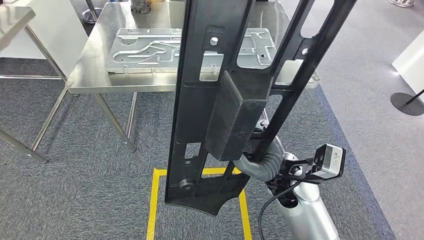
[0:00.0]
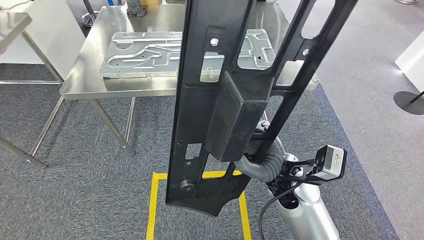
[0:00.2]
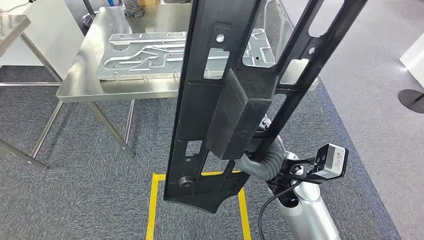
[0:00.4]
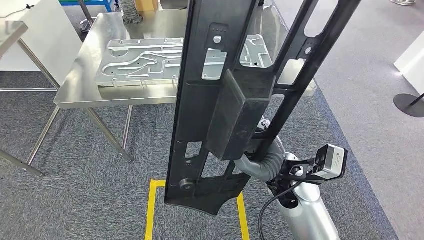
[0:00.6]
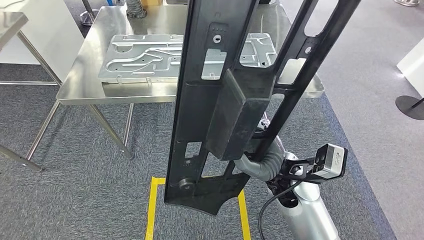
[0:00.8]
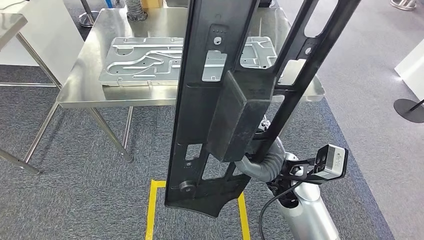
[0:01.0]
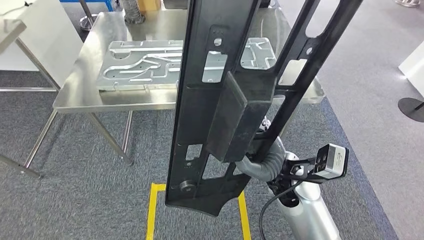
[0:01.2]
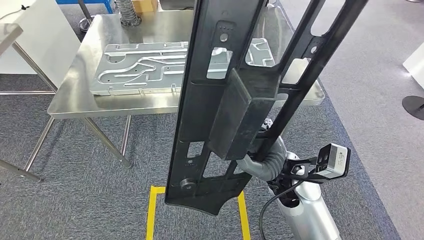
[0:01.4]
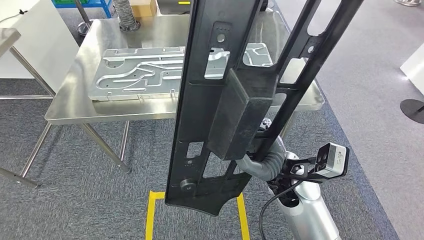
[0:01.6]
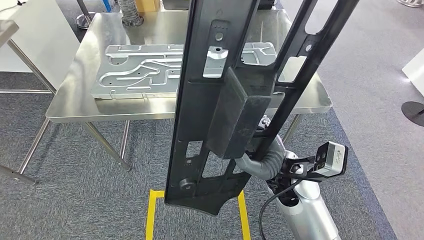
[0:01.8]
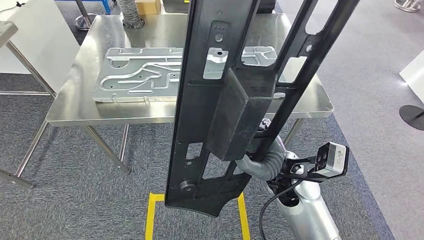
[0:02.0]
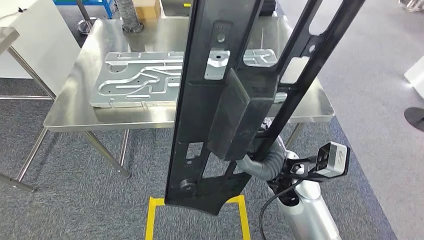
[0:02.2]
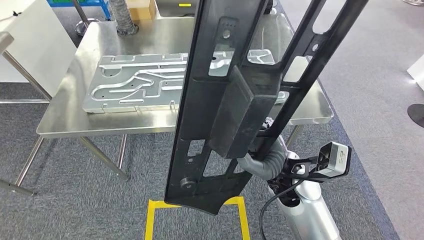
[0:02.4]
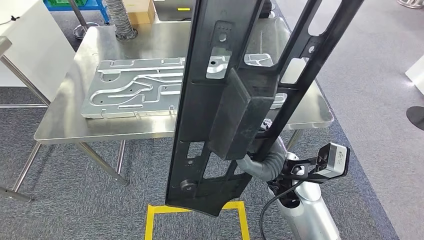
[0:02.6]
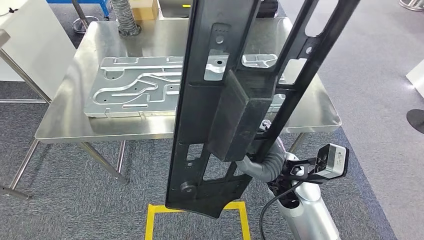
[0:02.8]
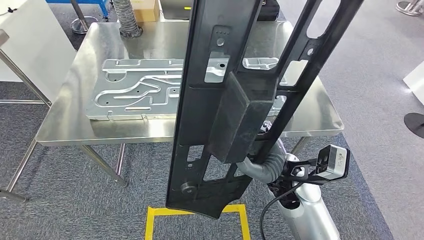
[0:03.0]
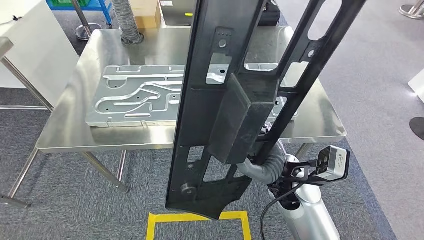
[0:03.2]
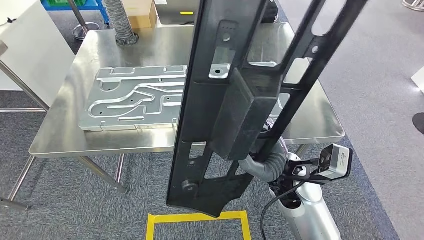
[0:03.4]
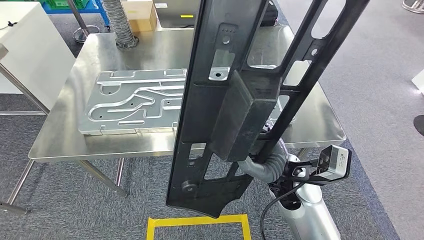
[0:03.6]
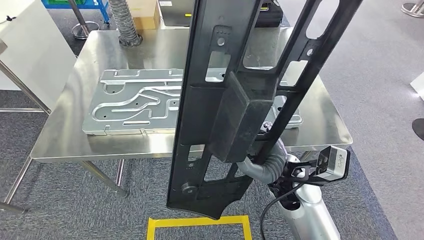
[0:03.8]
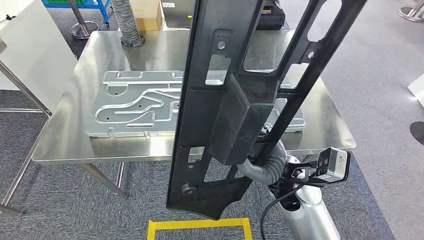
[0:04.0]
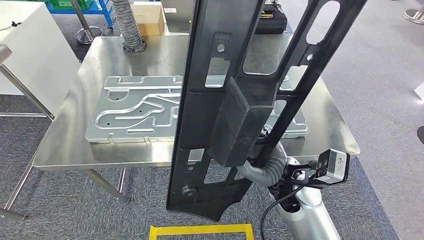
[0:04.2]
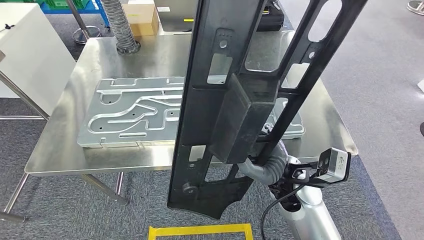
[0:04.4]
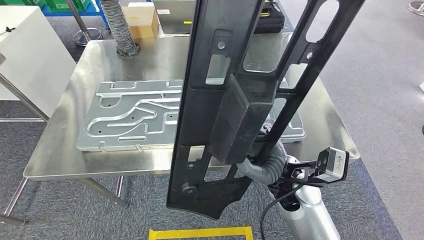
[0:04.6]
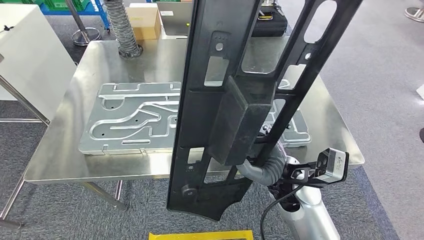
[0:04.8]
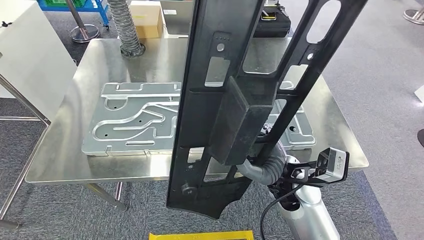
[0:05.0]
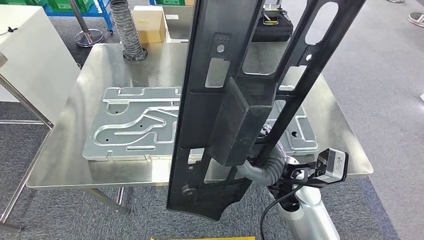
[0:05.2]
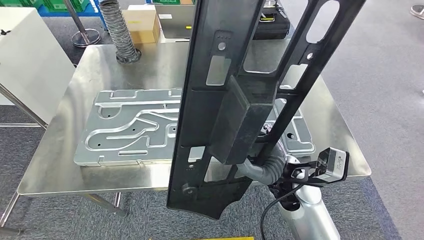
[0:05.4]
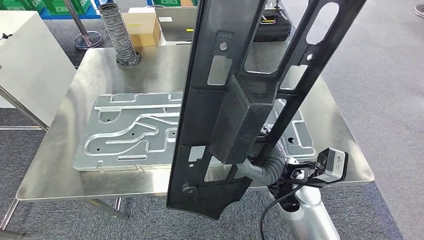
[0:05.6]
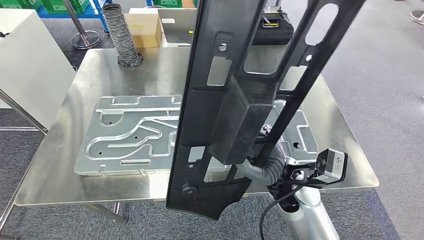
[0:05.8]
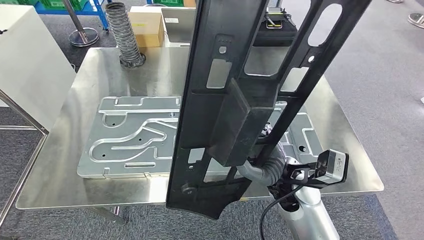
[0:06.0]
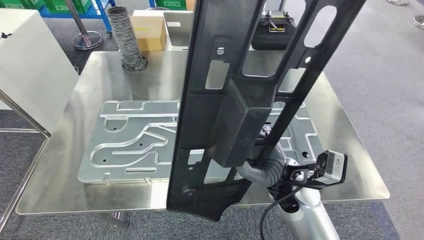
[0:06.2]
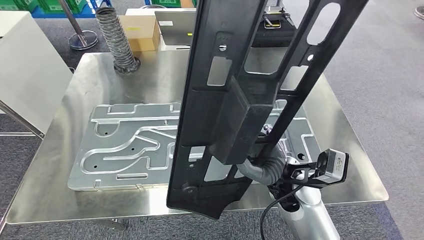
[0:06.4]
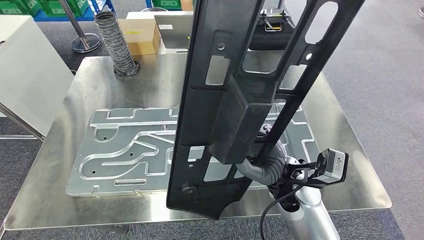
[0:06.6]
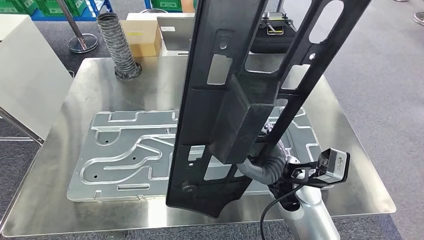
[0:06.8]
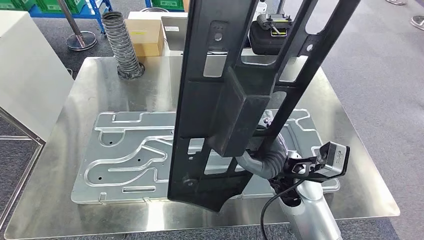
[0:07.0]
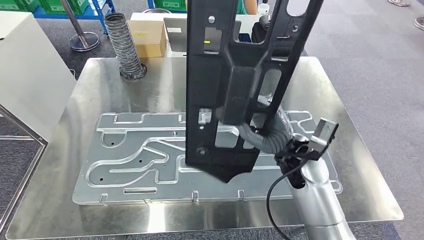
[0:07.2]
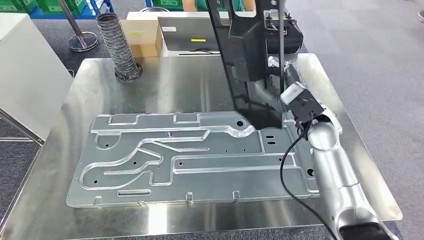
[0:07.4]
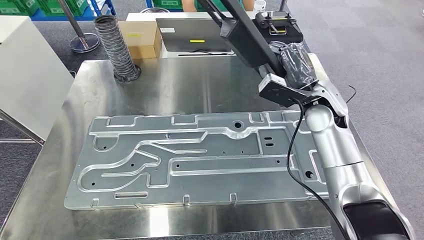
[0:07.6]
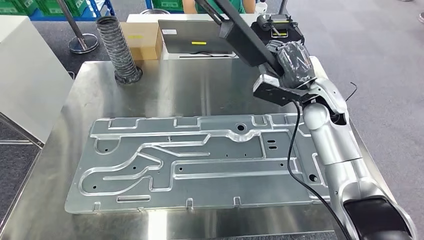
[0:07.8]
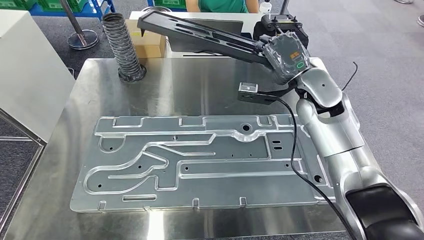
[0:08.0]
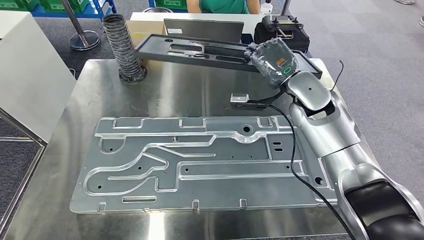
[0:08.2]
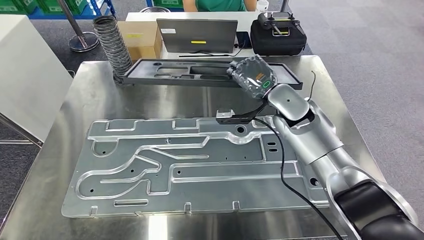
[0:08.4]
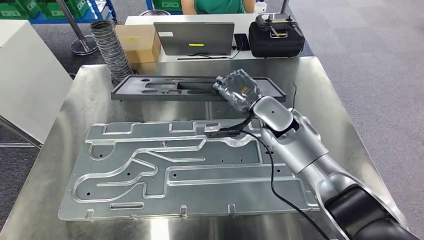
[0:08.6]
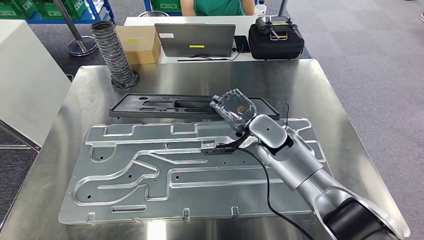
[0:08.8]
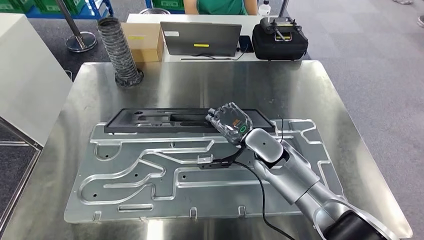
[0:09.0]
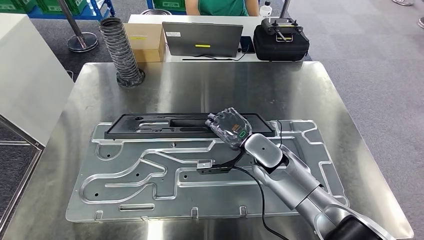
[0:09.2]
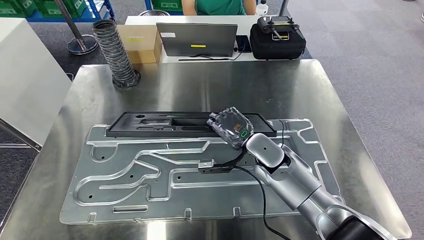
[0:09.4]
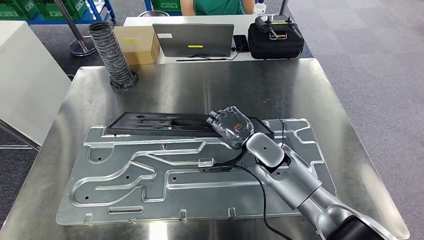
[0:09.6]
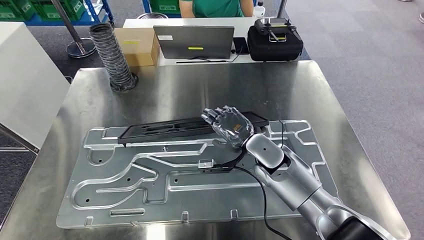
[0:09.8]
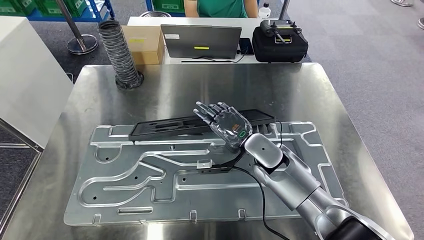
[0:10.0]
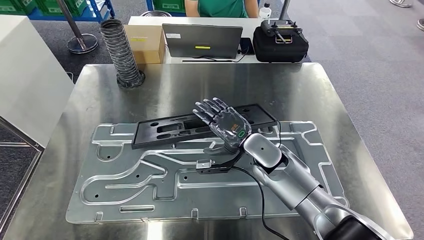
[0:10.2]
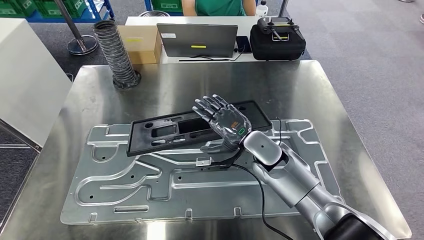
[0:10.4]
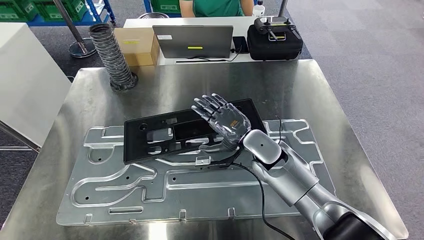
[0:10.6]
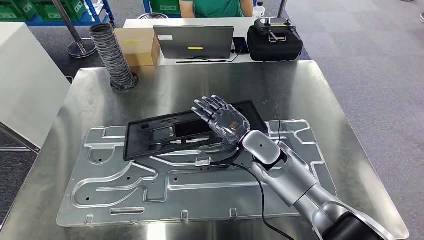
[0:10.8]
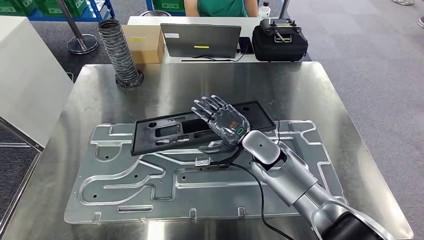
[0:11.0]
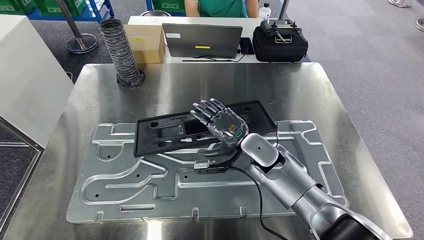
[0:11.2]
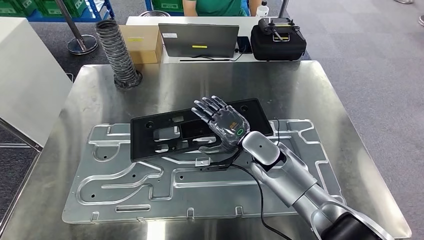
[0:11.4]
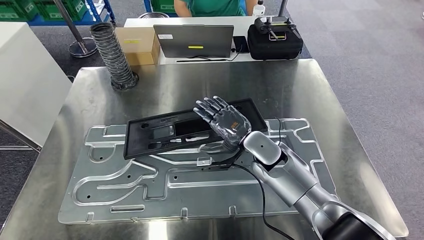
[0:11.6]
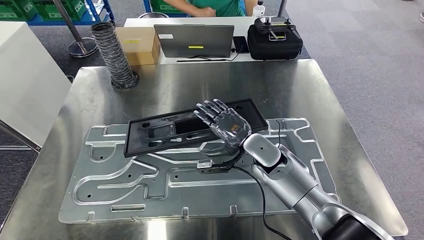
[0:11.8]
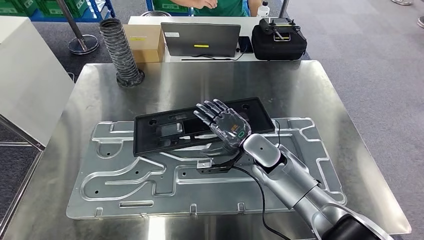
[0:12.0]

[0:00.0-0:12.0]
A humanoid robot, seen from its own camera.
Step, 0:00.0 to 0:05.2: Move the large material to the workbench.
Step, 0:06.8 to 0:10.4: Insert the large material into the corresponding slot on the workbench.
0:09.0 to 0:10.4: Neither hand changes place.

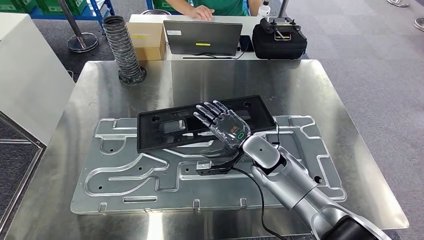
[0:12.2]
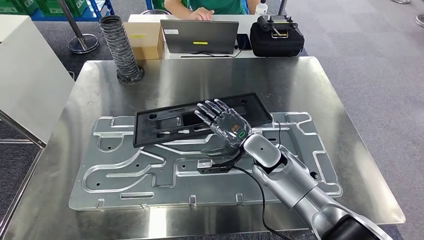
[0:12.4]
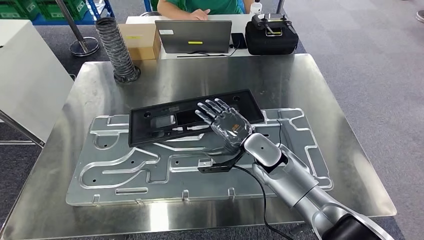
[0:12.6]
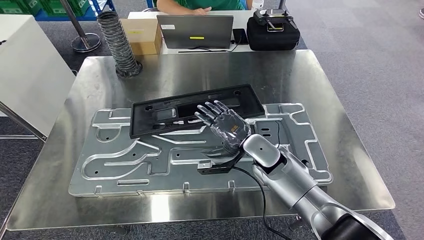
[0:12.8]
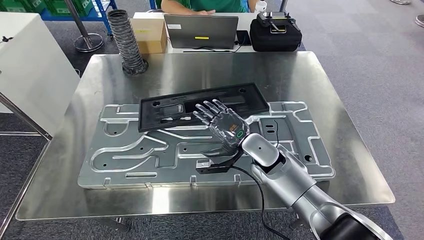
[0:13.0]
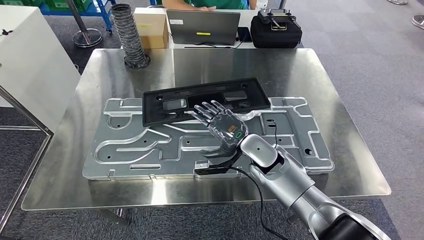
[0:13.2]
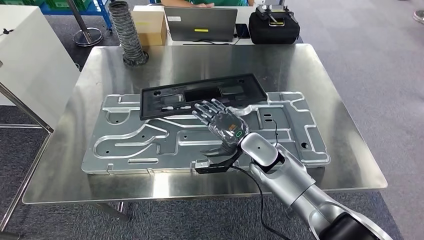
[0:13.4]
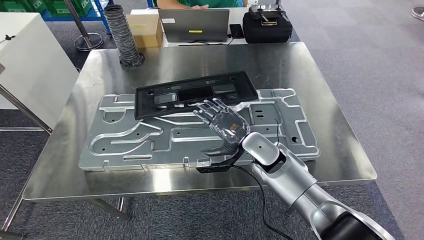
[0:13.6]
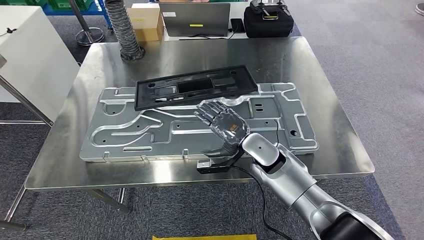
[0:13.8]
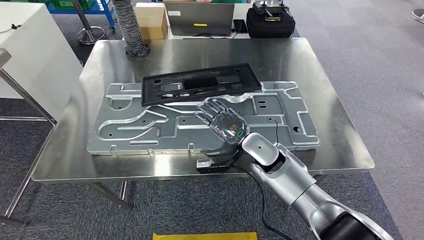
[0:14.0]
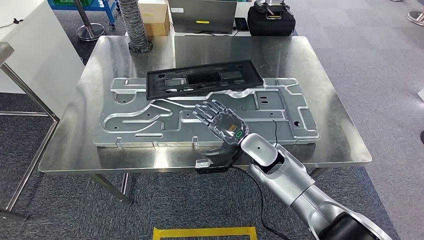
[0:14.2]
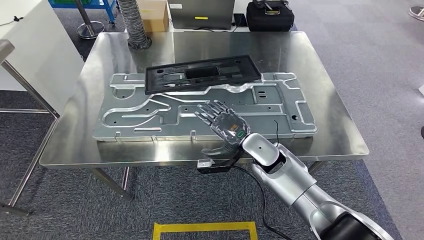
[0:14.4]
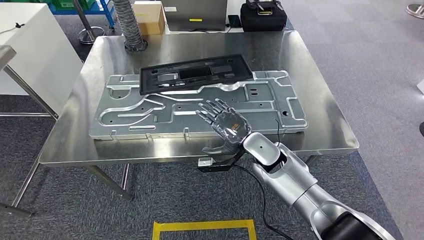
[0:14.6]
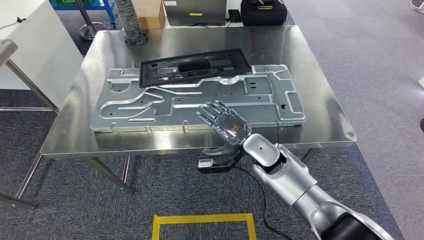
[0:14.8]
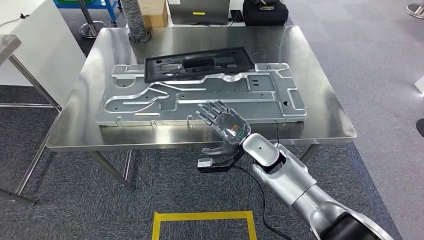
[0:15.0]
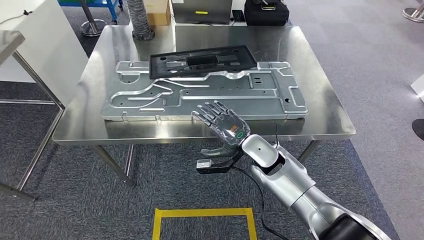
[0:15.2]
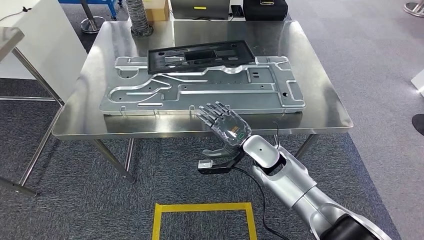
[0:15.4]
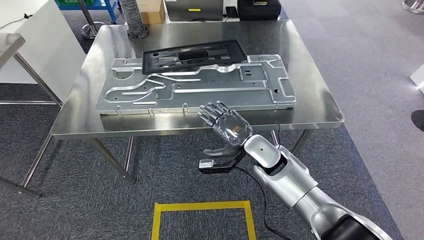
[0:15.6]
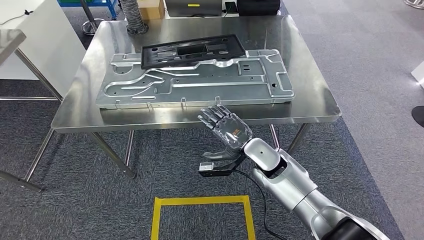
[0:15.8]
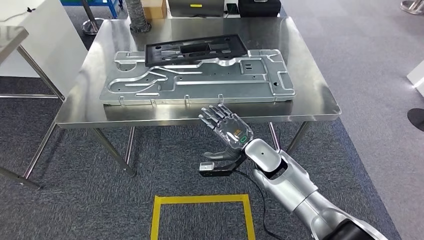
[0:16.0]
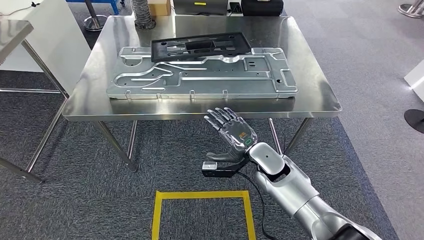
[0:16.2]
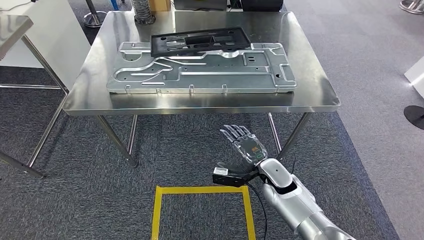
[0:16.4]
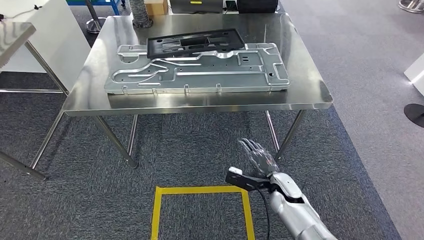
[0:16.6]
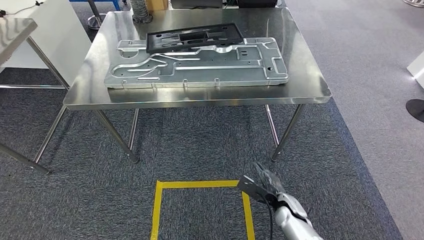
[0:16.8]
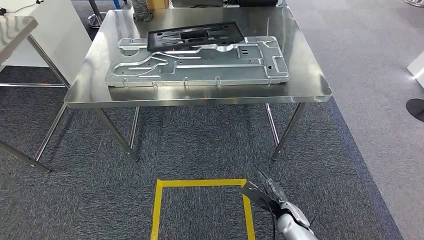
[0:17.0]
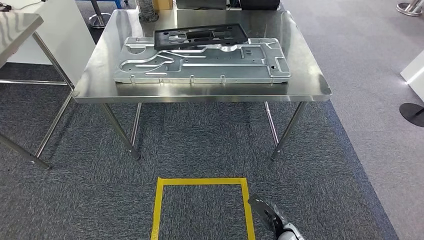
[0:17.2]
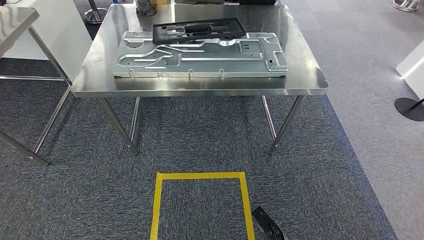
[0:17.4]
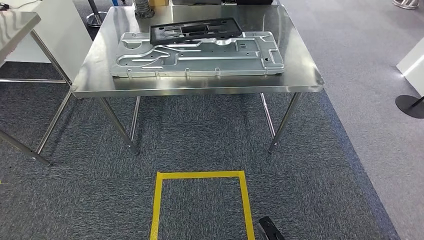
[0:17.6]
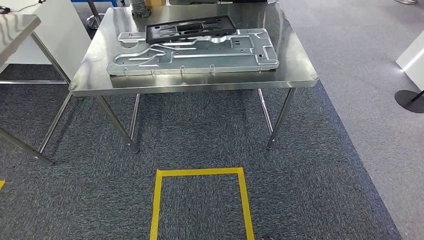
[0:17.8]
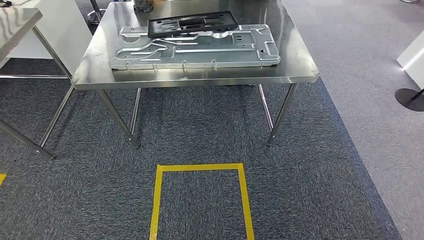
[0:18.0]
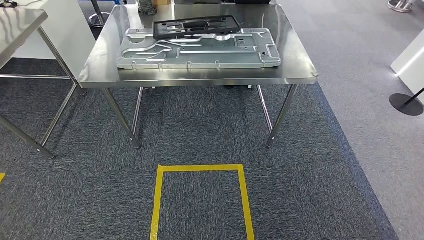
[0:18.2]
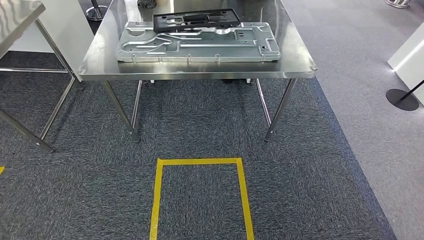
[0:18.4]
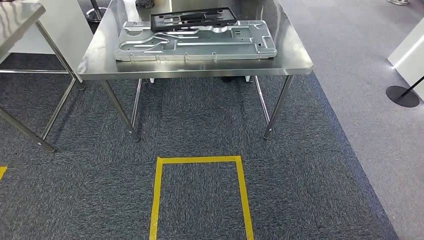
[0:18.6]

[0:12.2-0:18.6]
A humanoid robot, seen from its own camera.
Step, 0:13.4 to 0:18.6: Move to the initial position of the shelf.
